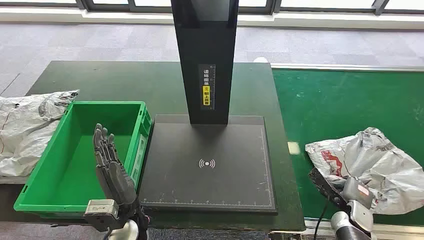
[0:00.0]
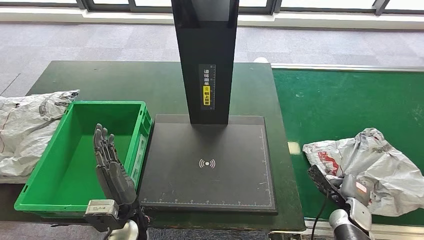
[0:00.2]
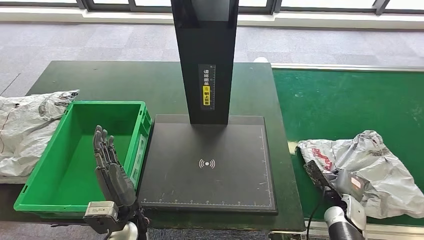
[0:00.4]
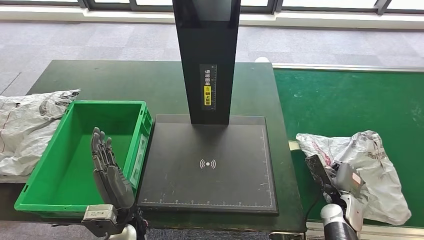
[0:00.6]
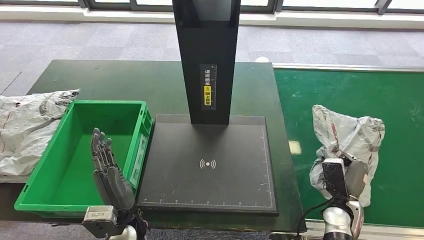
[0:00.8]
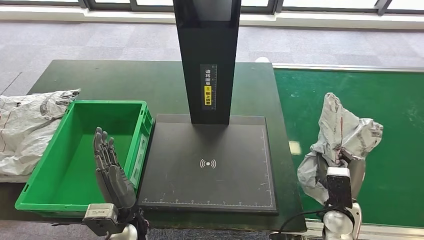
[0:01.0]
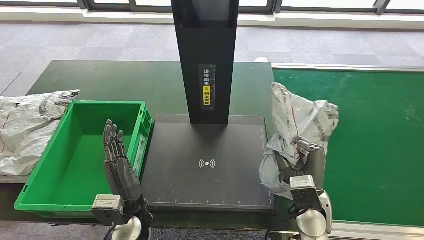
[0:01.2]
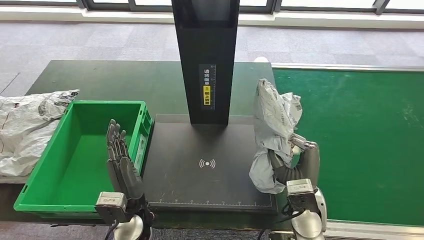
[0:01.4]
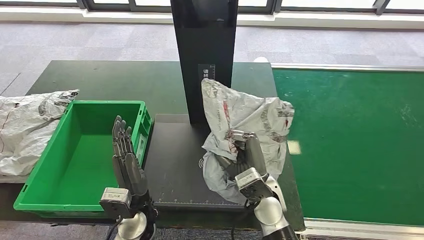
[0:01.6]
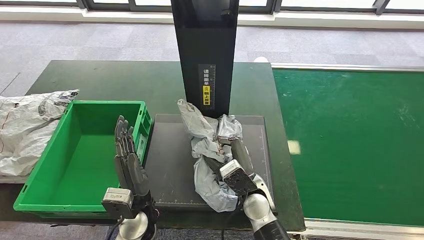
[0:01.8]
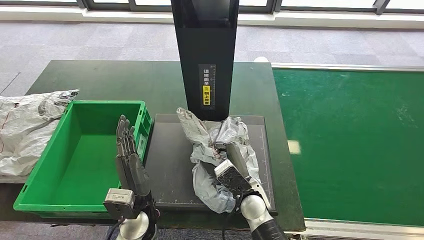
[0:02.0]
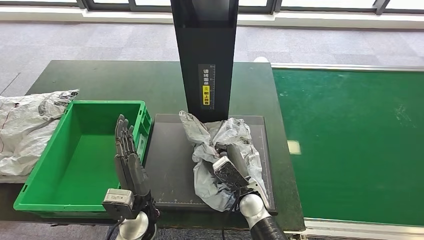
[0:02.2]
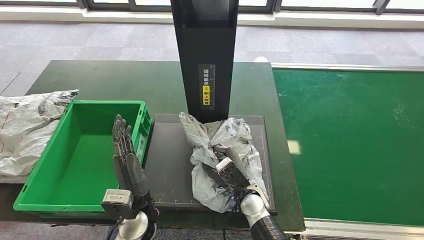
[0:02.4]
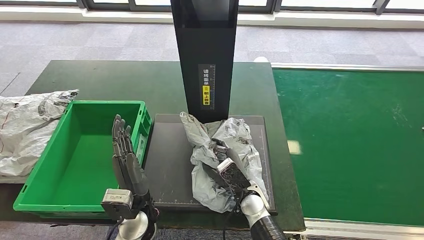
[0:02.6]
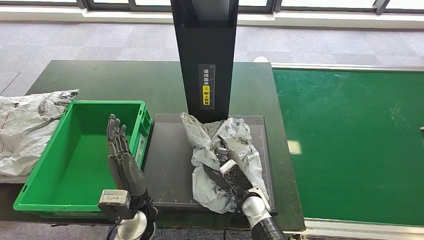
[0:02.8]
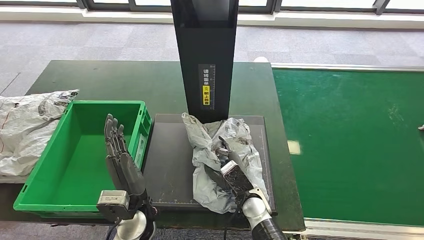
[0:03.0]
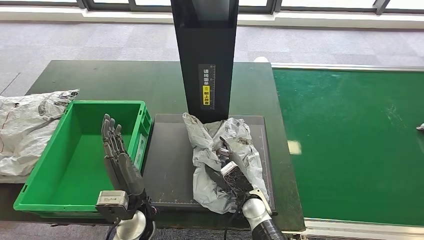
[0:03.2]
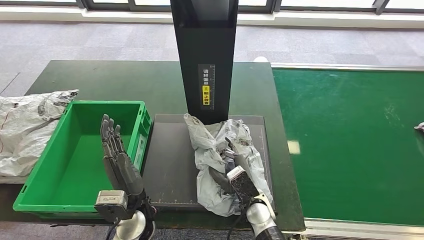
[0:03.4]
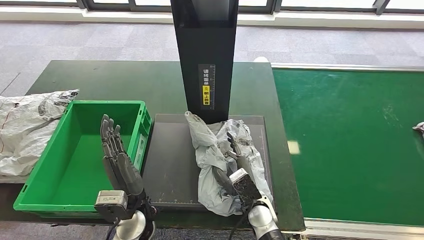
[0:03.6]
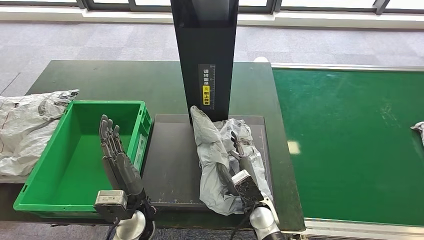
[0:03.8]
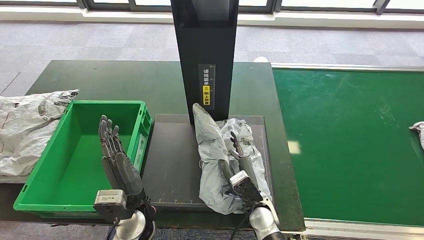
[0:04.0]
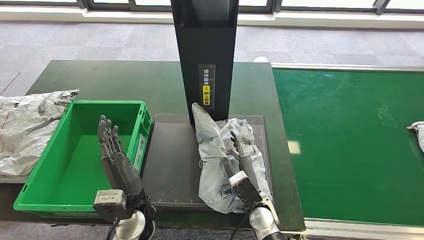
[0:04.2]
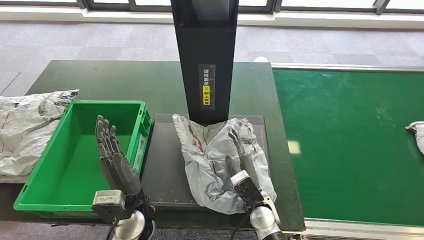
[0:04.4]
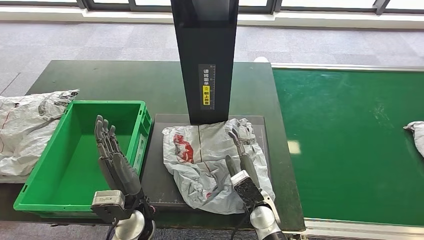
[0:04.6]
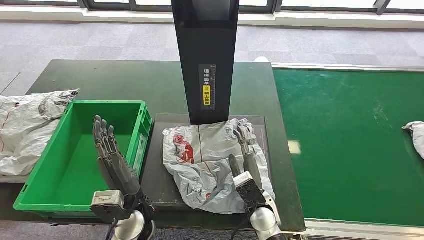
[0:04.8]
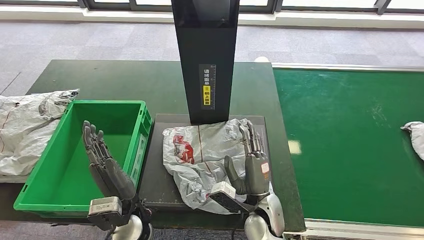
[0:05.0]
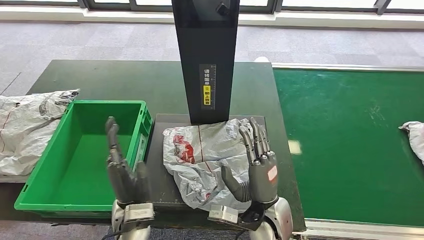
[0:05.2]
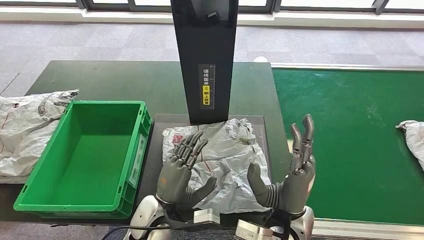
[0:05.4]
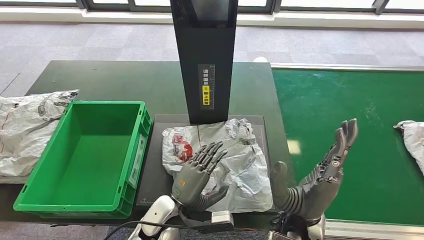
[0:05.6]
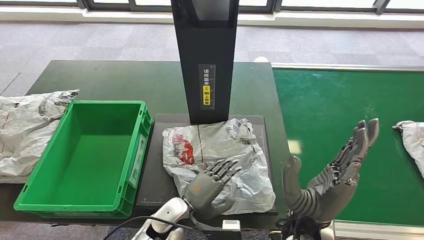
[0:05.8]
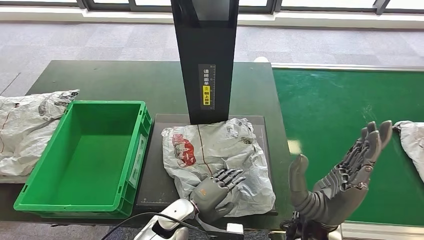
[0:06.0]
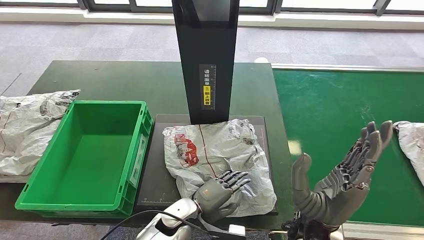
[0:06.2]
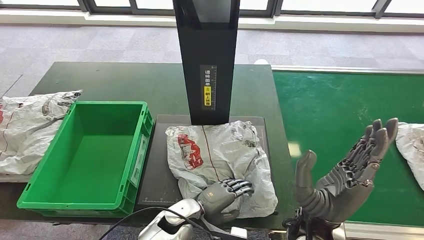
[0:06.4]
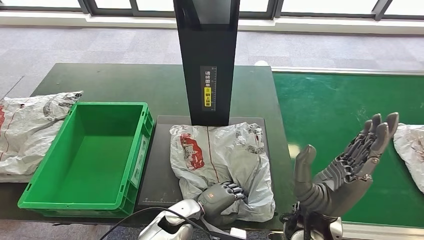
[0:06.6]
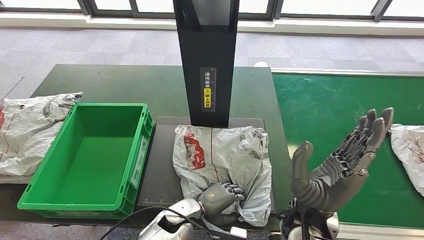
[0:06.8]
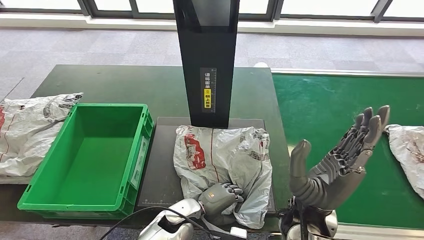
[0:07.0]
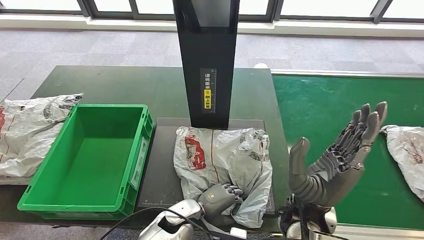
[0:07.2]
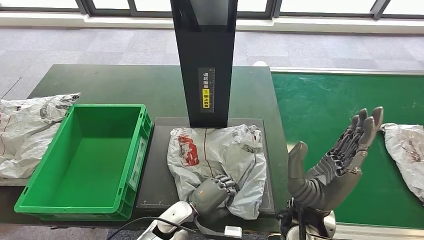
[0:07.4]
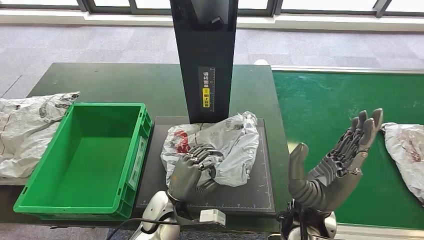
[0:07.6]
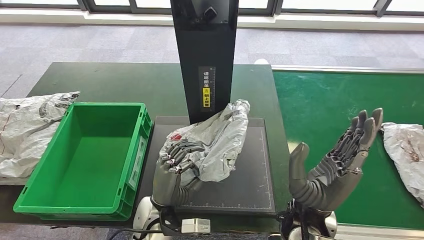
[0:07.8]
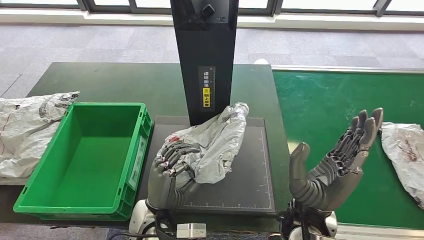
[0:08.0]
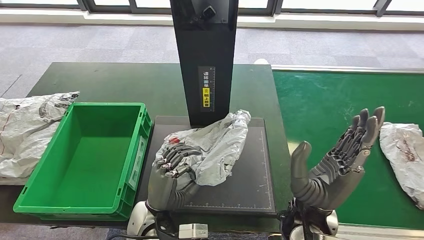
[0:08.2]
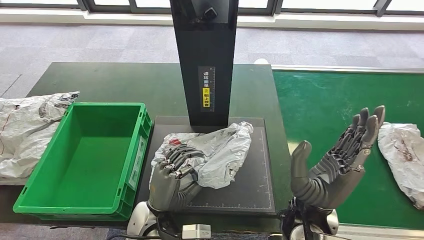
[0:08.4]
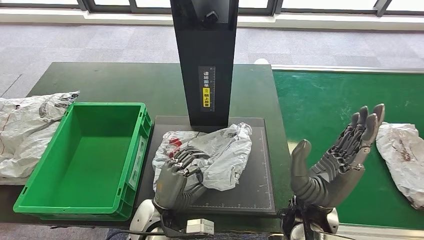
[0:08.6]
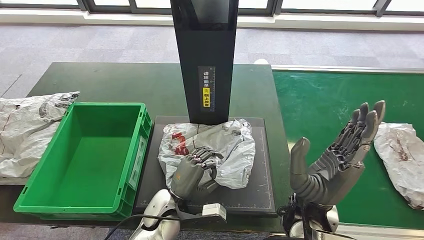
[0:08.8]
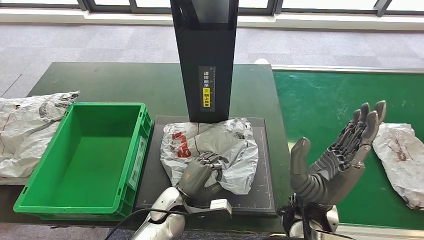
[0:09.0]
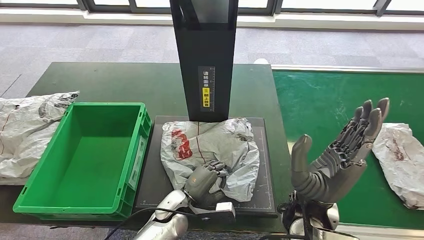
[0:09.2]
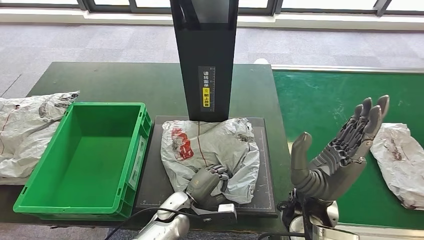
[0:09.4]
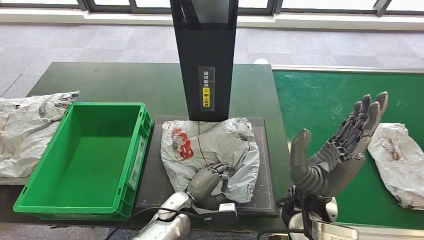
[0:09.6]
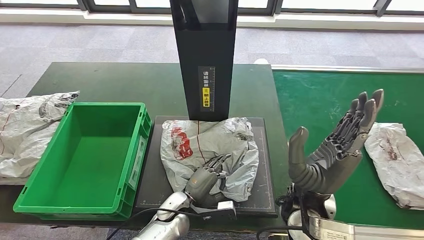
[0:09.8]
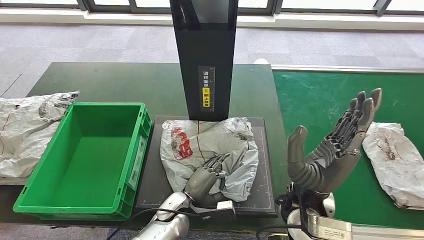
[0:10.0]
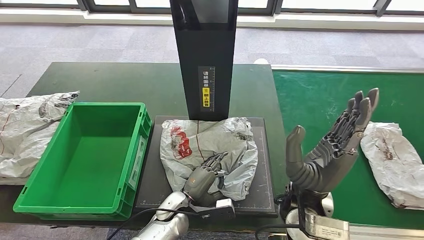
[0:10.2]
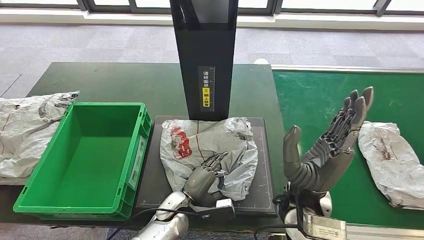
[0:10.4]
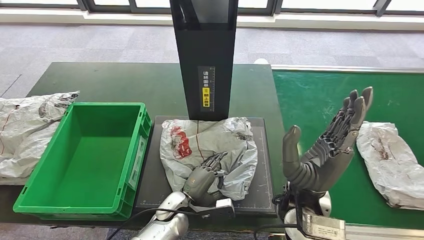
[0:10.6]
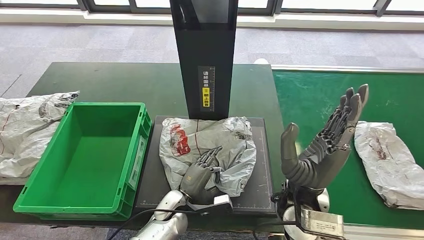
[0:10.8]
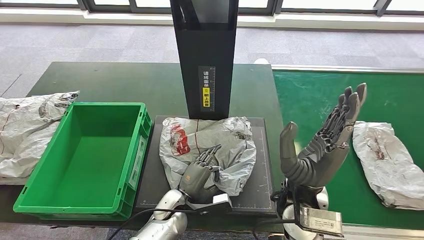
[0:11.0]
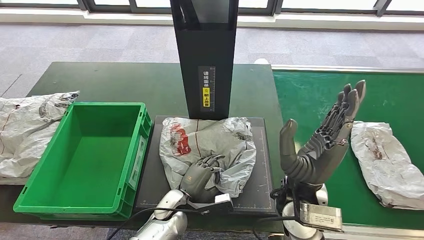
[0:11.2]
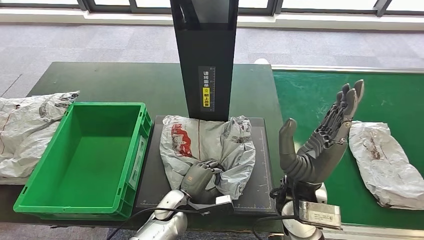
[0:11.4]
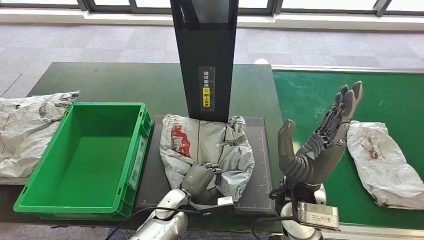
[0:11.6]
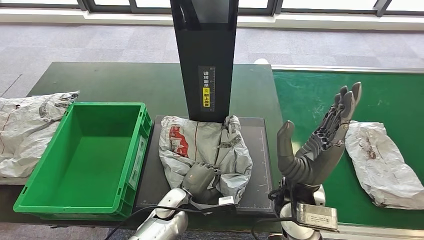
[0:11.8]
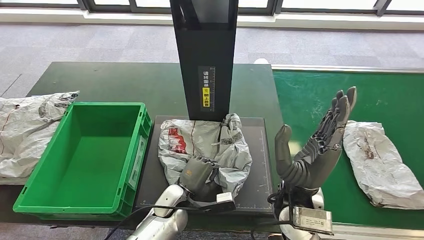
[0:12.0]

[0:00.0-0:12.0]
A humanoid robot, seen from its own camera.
Step, 0:00.0 to 0:02.2: Take the parcel off the conveyor belt.
Step, 0:02.4 to 0:04.2: Place the parcel onto the inbound machine.
Step, 0:04.6 to 0:08.8: Pick up the parcel from the inbound machine.
0:01.6 to 0:03.0: The right hand moves downward, roughly 10 cm.
0:03.0 to 0:04.4: There are only small adjustments of the hands.
0:04.4 to 0:06.0: The right hand goes roughly 15 cm upward. The left hand heads downward and to the right, covering approximately 10 cm.
0:07.6 to 0:09.0: The hands stay close to where they were, moving slightly.
0:09.0 to 0:12.0: The hands stay close to where they were, moving slightly.

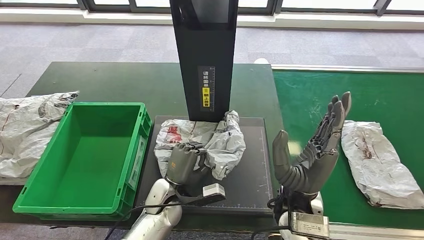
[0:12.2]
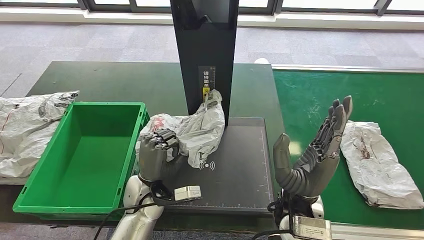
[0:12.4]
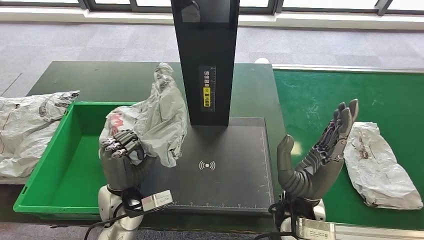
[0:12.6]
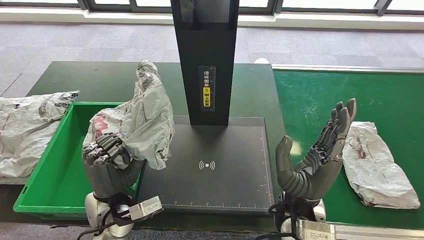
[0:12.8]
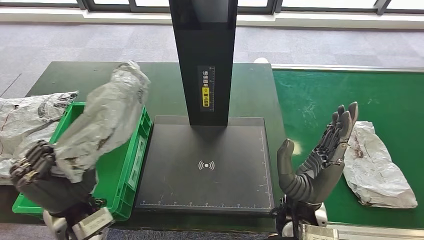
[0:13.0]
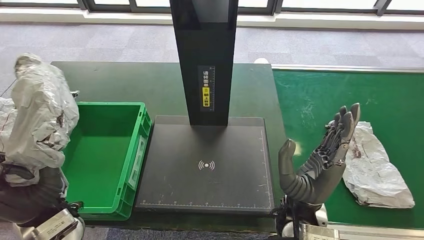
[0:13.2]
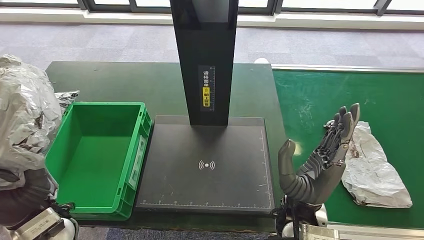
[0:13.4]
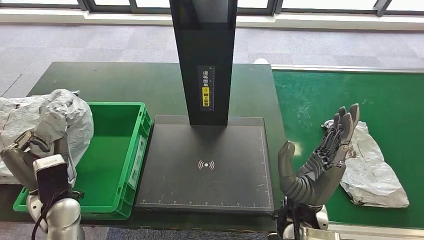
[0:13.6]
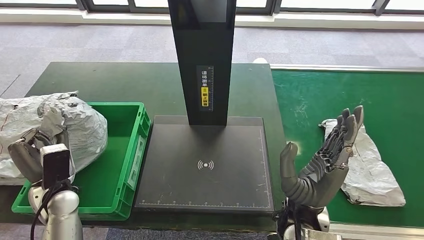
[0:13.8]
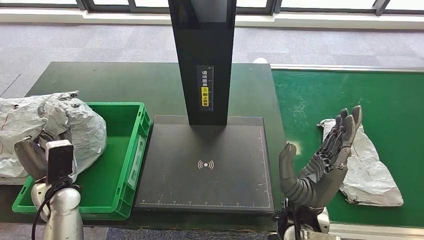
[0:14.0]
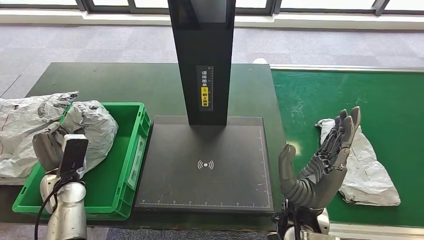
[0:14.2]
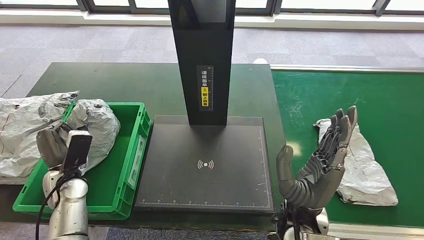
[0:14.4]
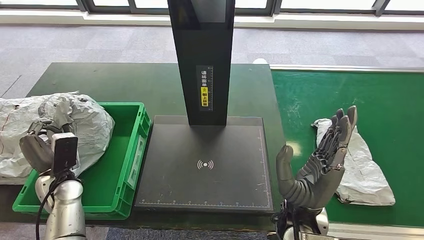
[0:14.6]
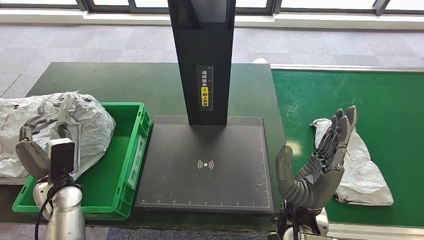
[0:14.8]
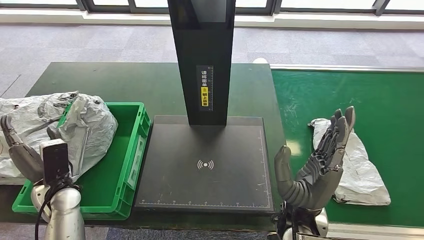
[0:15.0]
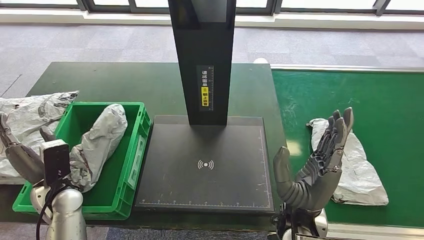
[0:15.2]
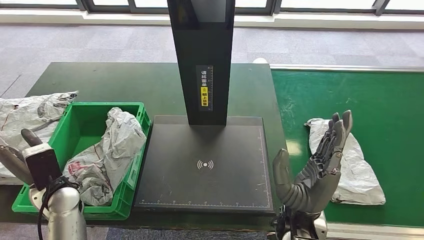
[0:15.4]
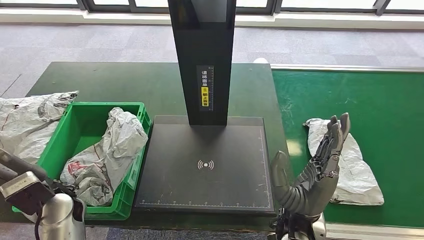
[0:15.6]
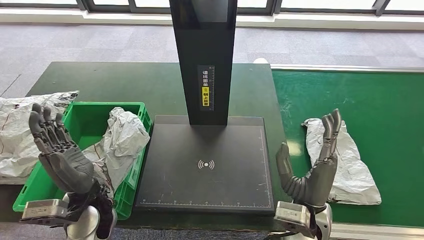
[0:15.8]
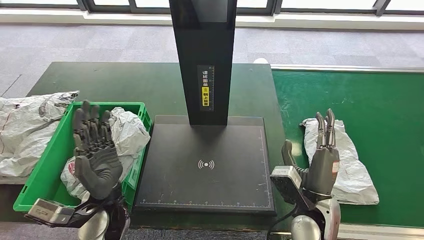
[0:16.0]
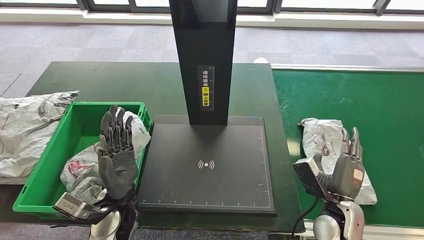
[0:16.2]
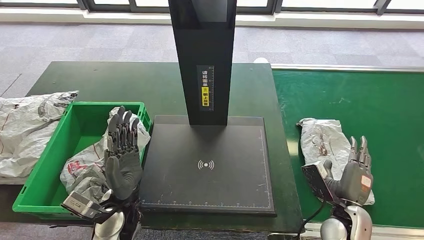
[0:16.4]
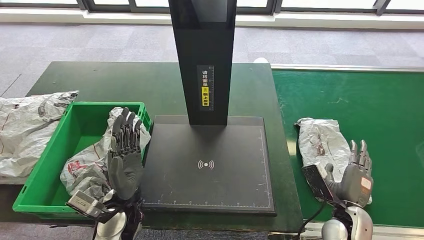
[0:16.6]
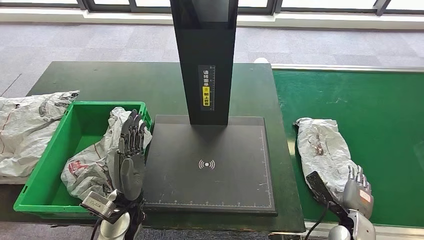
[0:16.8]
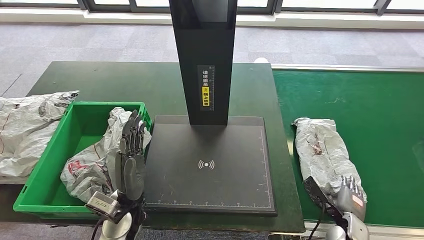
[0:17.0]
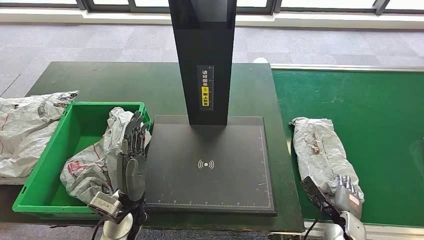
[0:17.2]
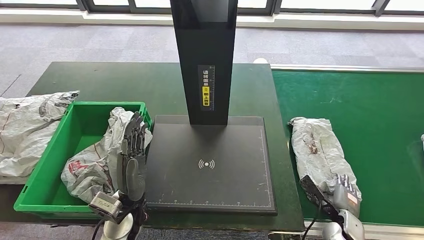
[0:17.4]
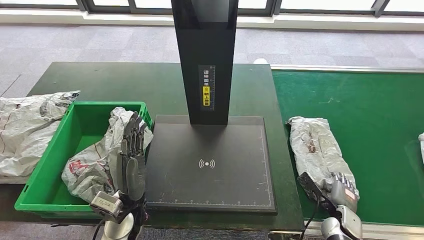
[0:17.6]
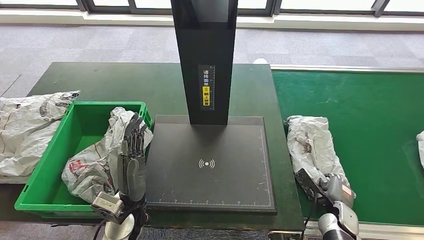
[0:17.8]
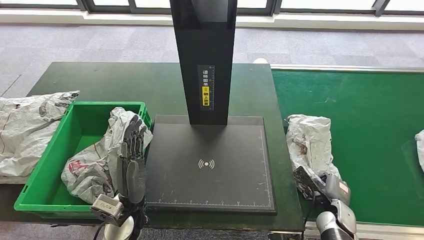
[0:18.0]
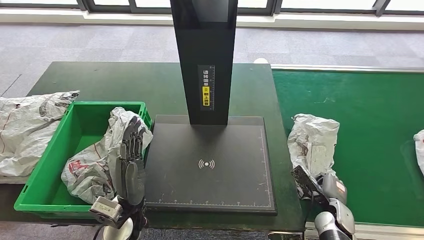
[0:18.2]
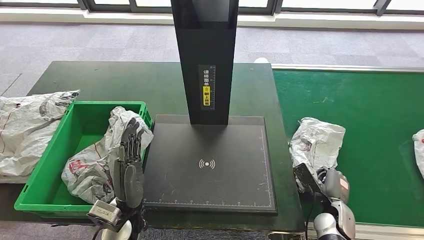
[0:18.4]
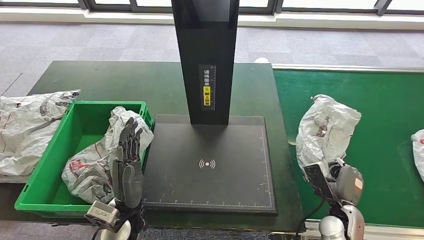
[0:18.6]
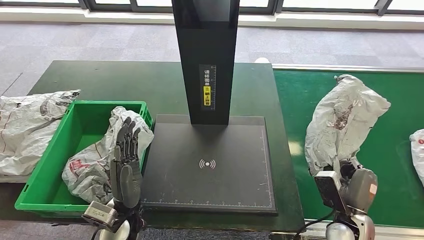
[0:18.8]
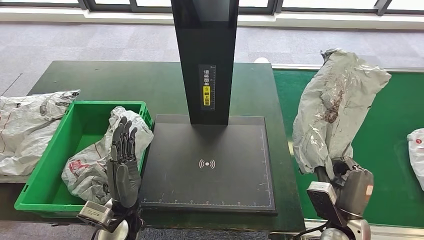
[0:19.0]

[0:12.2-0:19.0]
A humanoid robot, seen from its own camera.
Step, 0:12.2 to 0:15.8: Put the parcel inside the courier box.
0:13.6 to 0:15.0: The left hand changes place by roughly 5 cm.
0:16.2 to 0:17.6: The right hand is displaced downward and to the right by approximately 15 cm.
